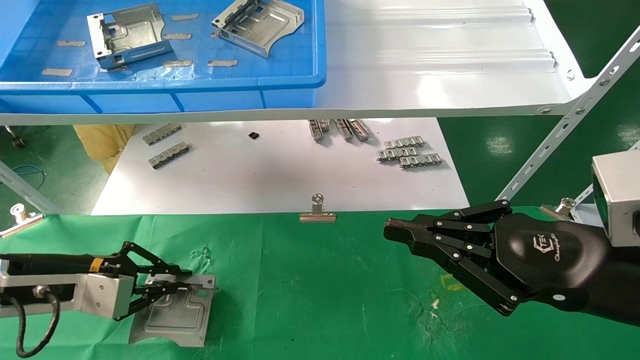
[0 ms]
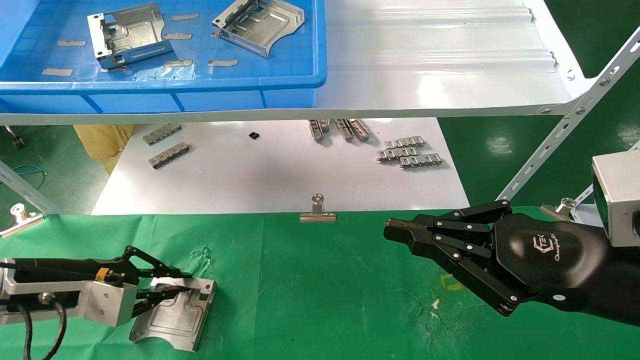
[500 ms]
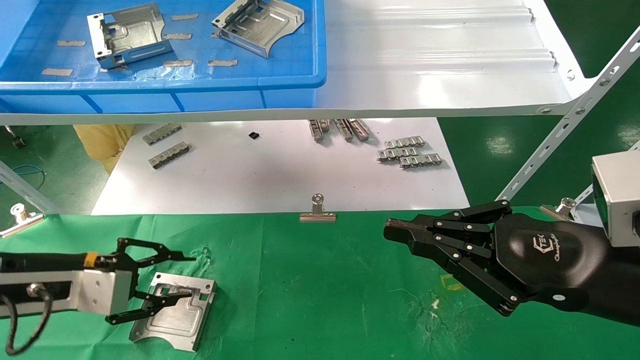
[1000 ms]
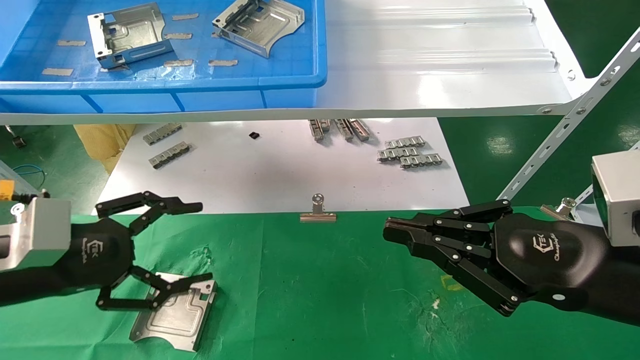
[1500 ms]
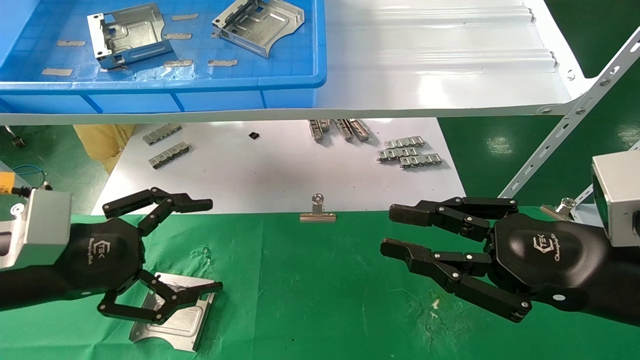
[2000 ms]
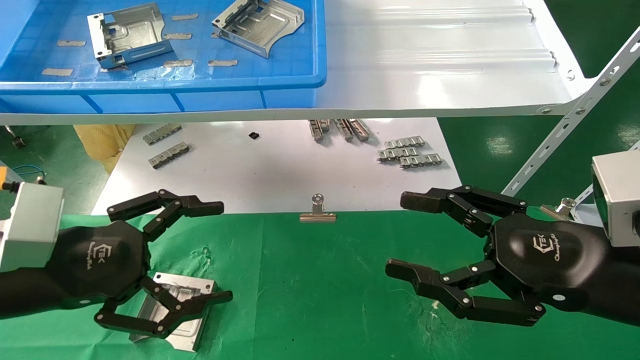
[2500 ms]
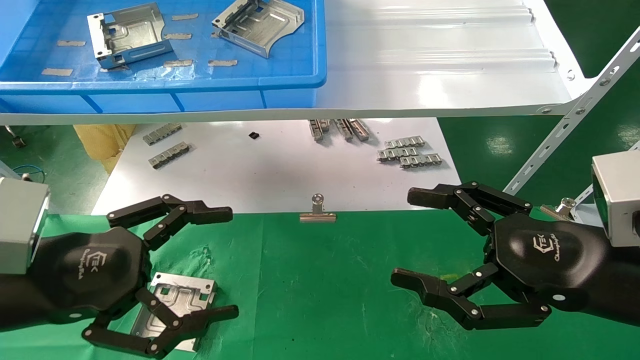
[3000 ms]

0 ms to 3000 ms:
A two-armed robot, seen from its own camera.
Task of the whole recording: use the mechanical arm to pick up the parts and place them on the table.
0 ms to 1500 ms: The left gripper moves backward, approximately 5 cm, and opens up.
1500 ms to 3000 ms: The right gripper opens up, while the left gripper heads backward, covering roughly 5 cm.
